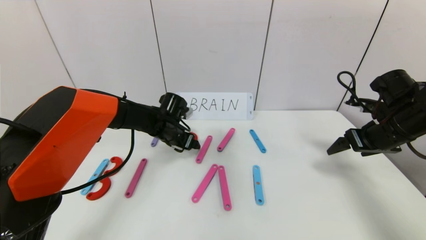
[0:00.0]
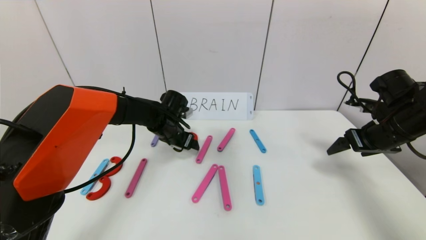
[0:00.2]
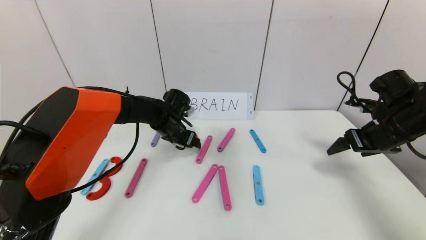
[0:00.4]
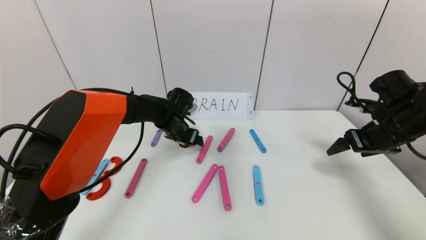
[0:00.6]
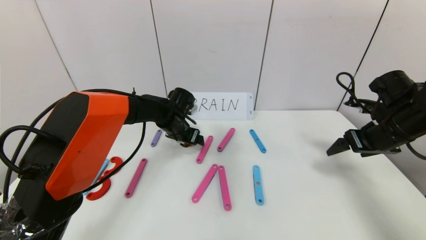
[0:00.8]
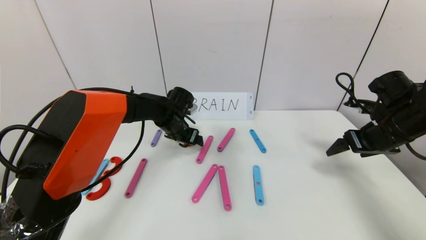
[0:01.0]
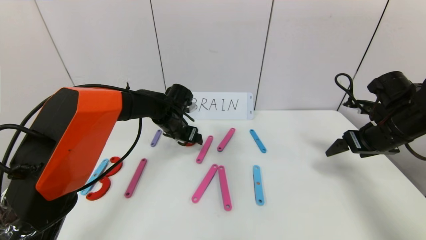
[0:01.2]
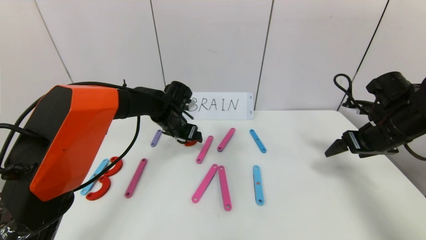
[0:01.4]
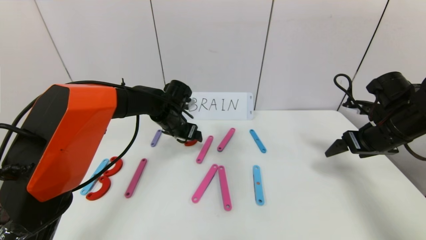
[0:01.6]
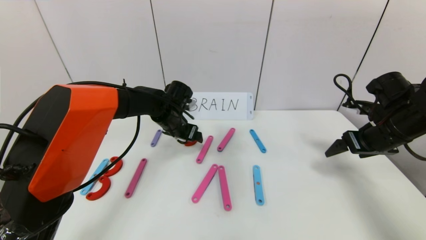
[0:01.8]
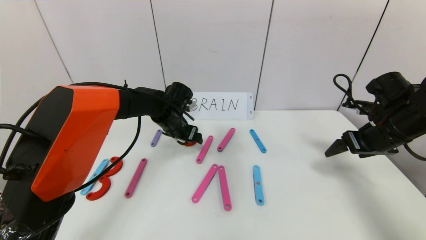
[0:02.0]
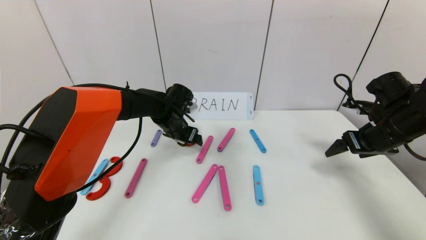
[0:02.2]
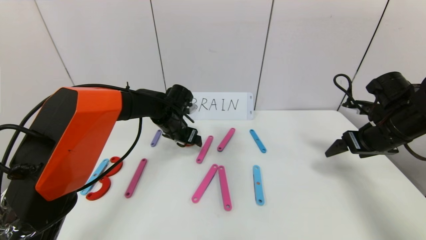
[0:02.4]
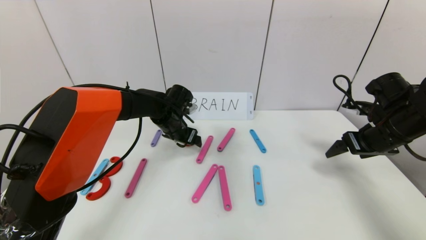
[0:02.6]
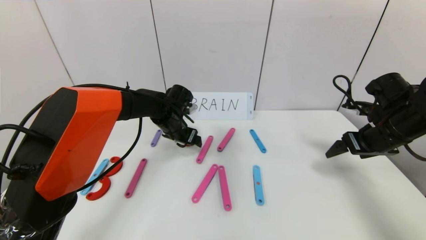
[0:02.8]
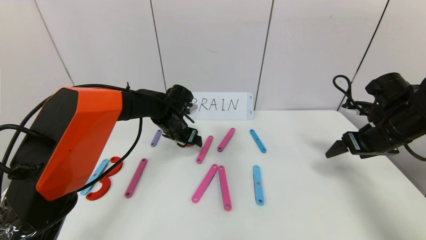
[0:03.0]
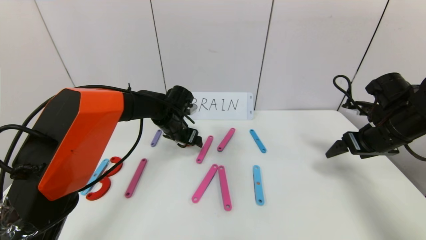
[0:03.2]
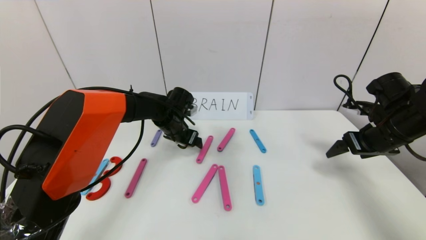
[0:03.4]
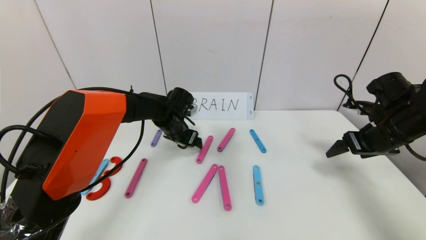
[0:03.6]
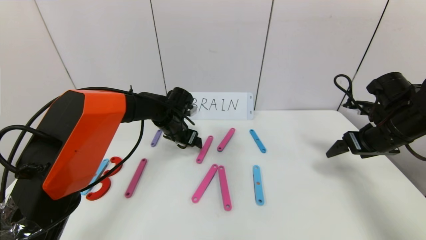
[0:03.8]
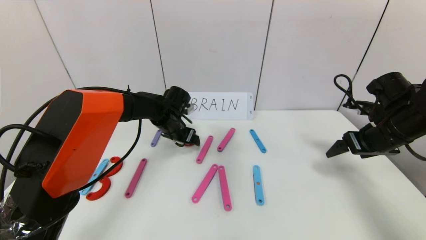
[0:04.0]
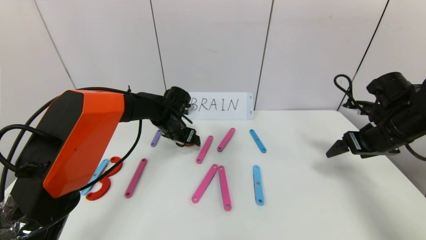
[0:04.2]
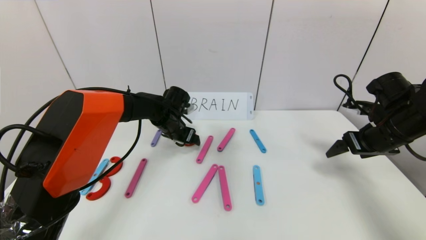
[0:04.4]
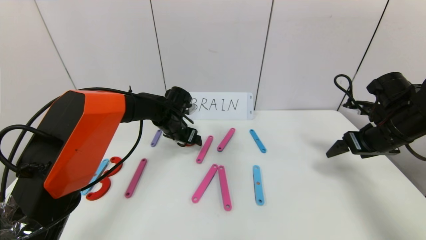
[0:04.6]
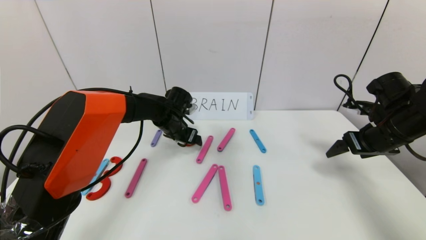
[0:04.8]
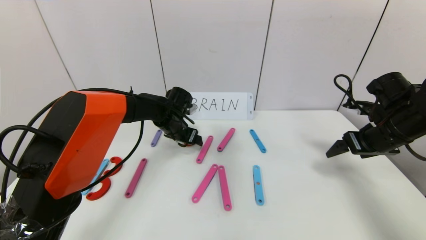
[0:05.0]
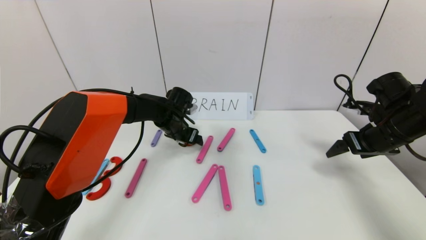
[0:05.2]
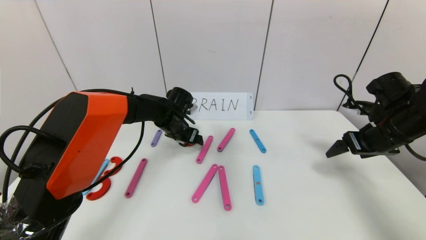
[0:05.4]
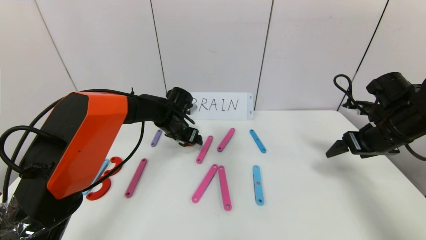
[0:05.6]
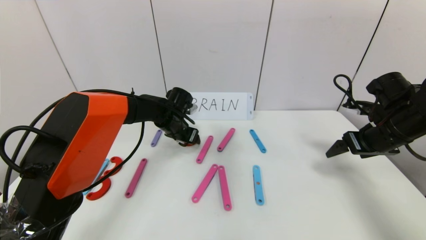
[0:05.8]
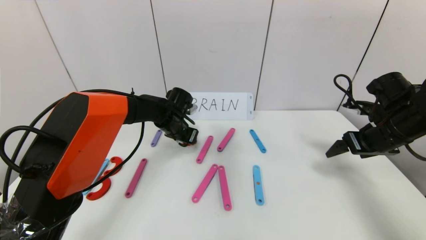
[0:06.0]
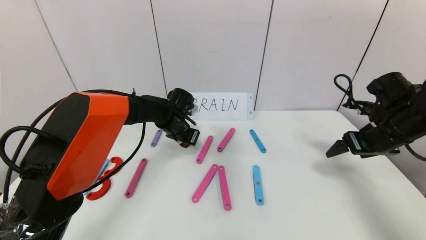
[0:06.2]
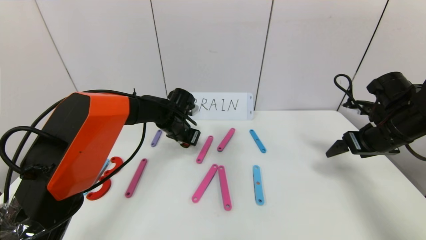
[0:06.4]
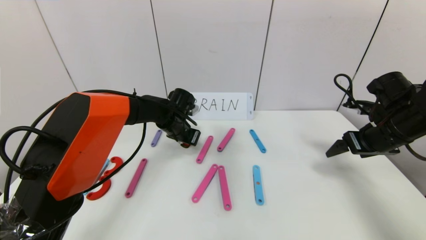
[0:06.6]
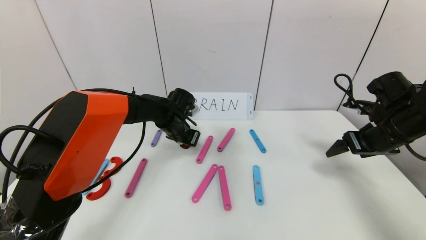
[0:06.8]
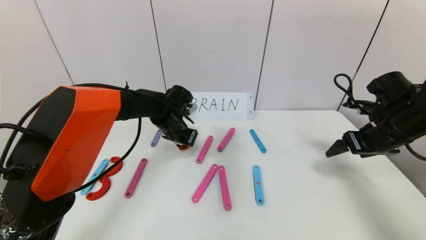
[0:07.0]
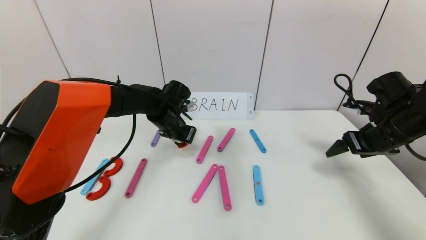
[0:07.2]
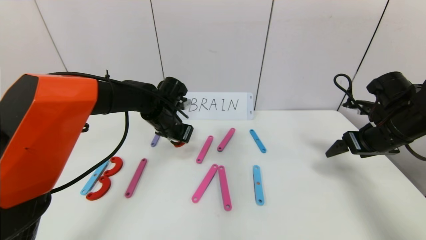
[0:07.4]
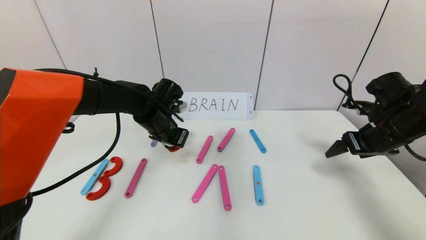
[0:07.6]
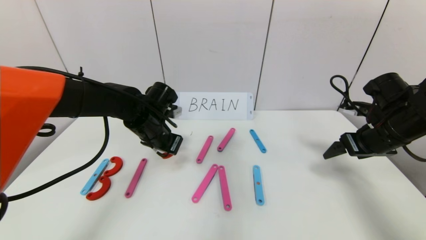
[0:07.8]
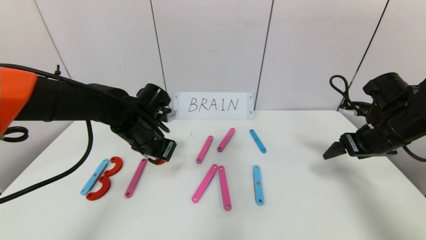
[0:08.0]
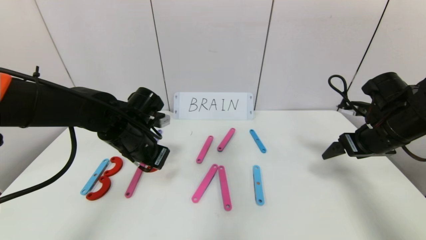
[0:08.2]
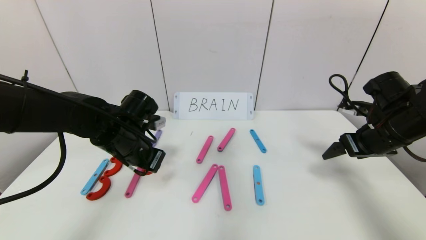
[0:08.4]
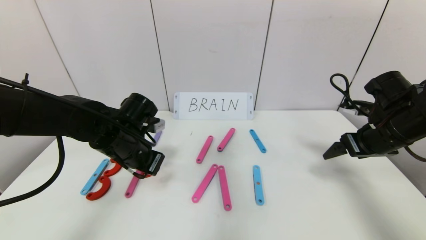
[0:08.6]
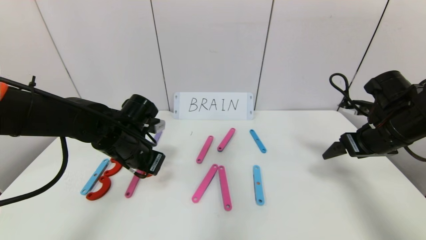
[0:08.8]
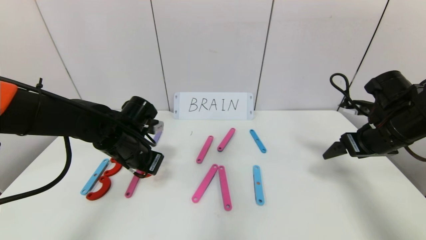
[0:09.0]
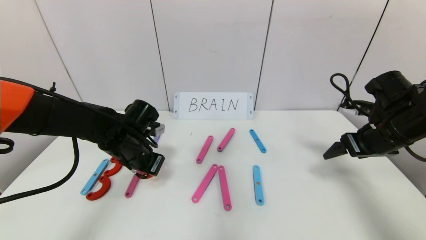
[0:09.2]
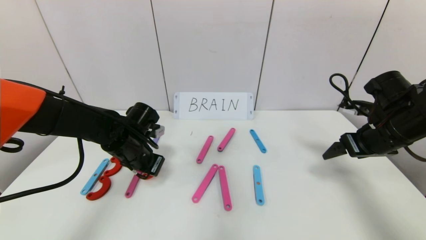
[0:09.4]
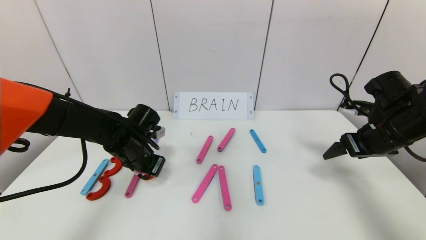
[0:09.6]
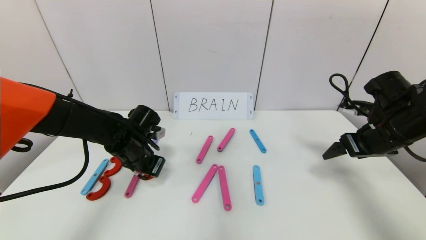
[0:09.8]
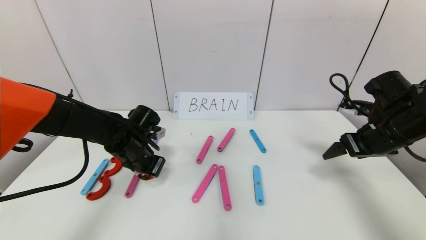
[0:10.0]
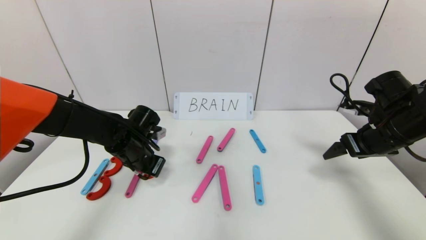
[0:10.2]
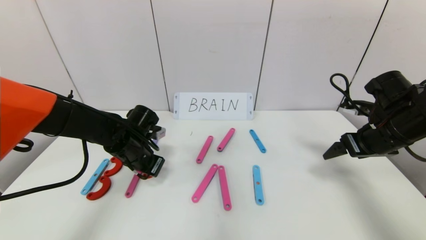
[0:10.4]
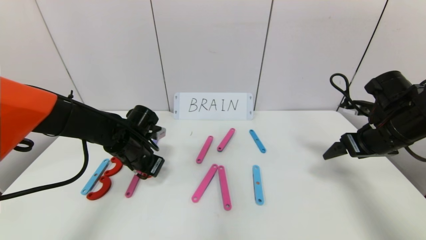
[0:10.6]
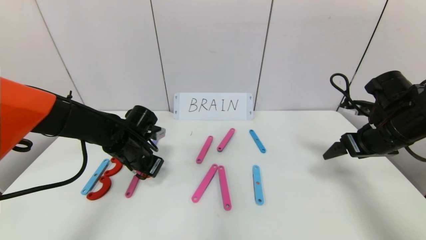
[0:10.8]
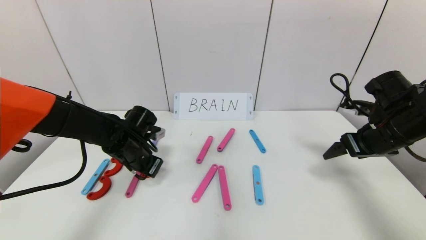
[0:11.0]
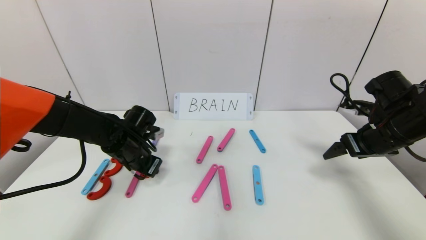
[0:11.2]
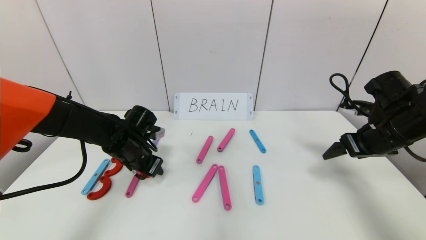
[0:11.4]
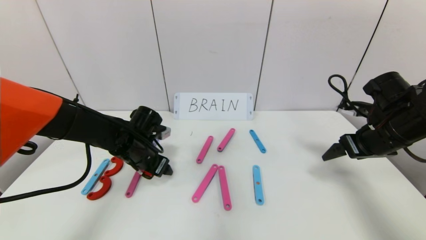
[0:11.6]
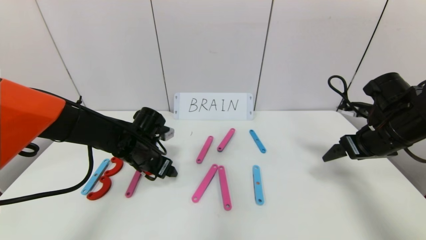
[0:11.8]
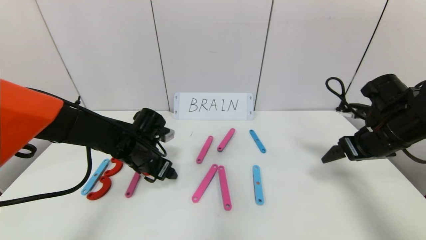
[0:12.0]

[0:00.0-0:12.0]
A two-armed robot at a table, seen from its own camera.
Task of the whole recording: rearrange the word baai as brain.
0:00.0 to 0:01.6: The grippers make only small movements.
0:01.6 to 0:03.0: Neither gripper changes place.
0:03.0 to 0:04.4: There are only small adjustments of the grippers.
0:04.4 to 0:06.0: The left gripper closes its fingers.
0:06.0 to 0:07.6: The left gripper travels backward and upward by approximately 10 cm, and closes.
0:07.6 to 0:09.0: The left gripper moves backward, roughly 5 cm.
0:09.0 to 0:10.4: There are only small adjustments of the grippers.
0:10.4 to 0:12.0: The left gripper opens its fingers.

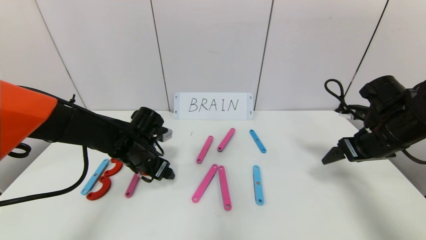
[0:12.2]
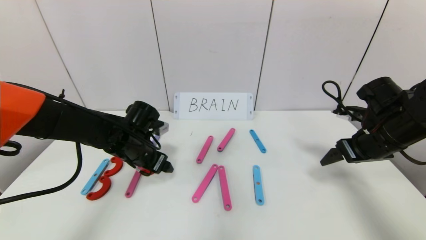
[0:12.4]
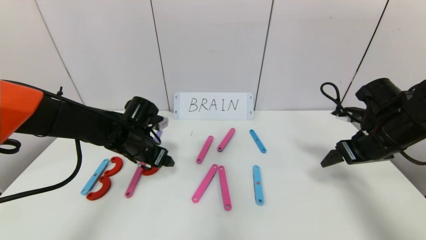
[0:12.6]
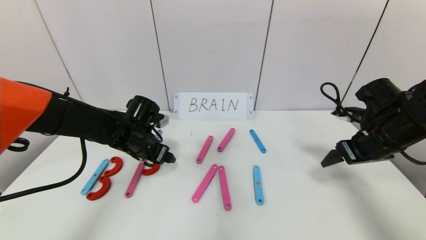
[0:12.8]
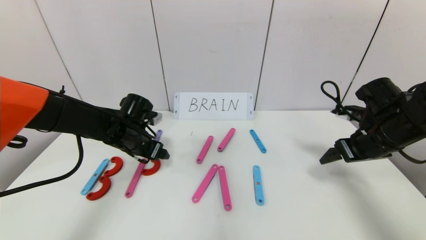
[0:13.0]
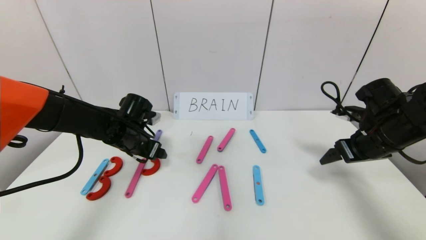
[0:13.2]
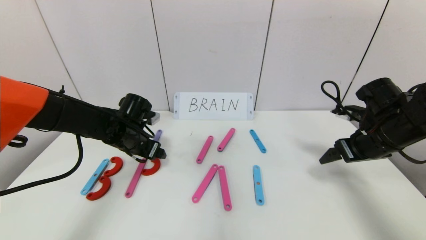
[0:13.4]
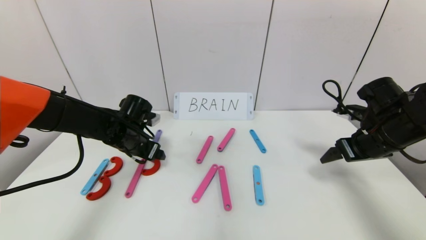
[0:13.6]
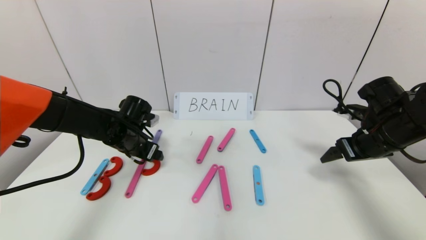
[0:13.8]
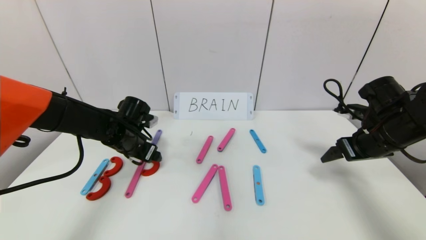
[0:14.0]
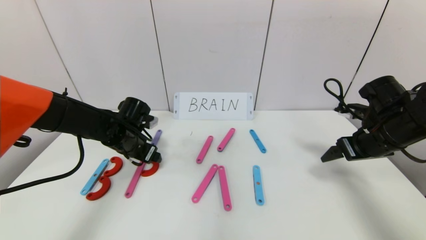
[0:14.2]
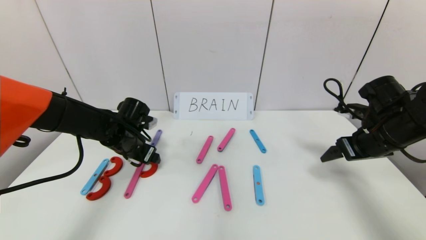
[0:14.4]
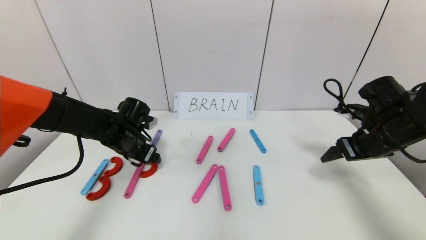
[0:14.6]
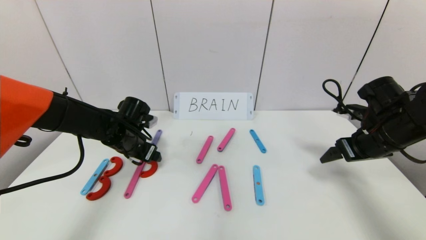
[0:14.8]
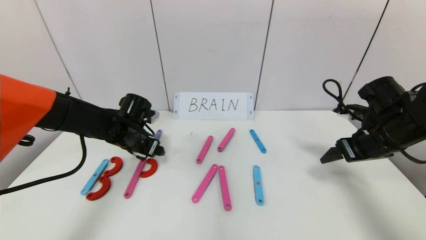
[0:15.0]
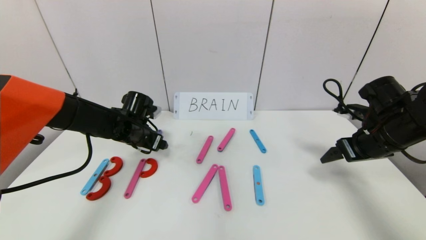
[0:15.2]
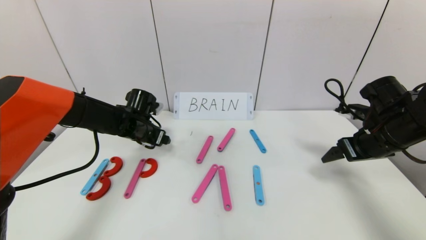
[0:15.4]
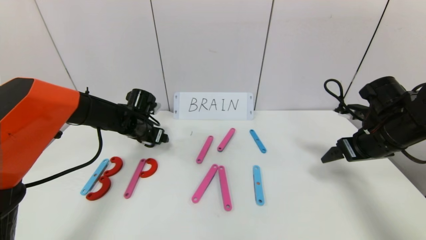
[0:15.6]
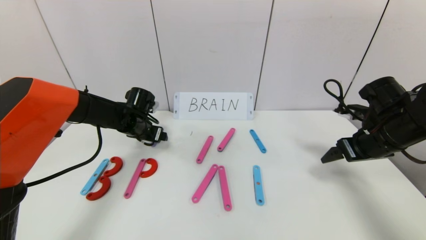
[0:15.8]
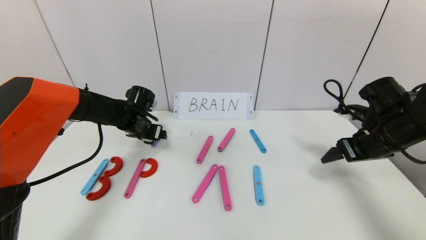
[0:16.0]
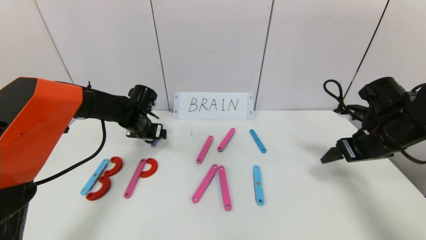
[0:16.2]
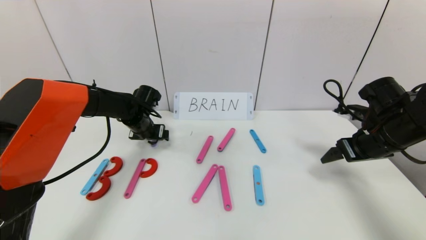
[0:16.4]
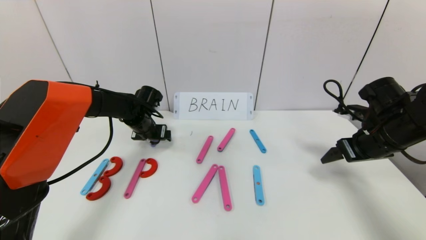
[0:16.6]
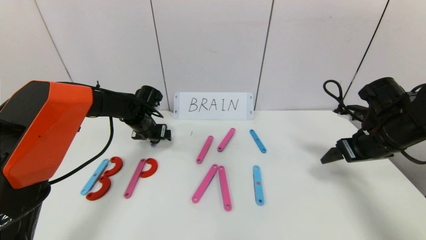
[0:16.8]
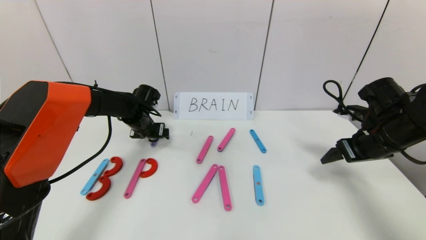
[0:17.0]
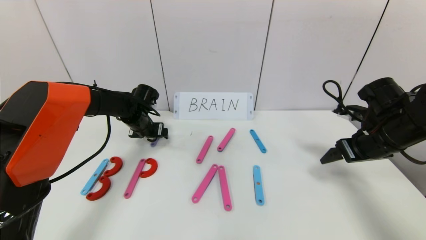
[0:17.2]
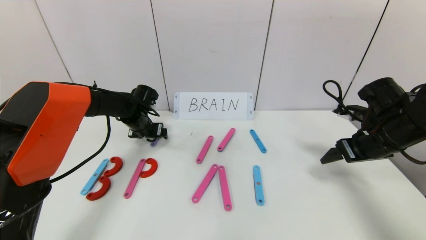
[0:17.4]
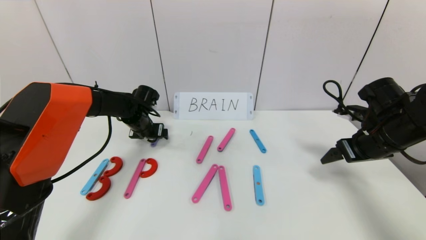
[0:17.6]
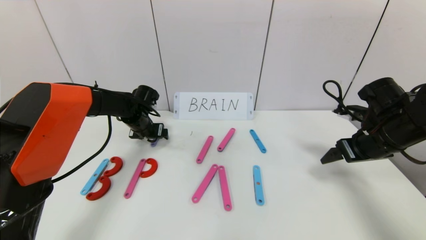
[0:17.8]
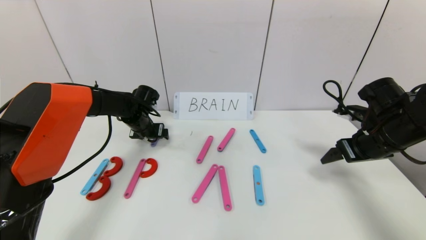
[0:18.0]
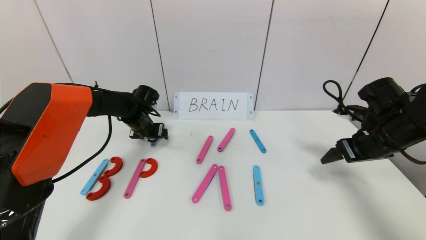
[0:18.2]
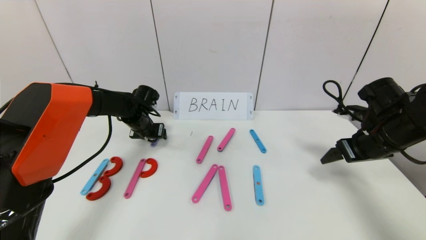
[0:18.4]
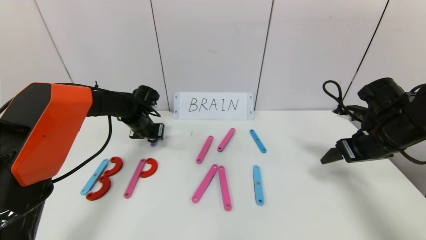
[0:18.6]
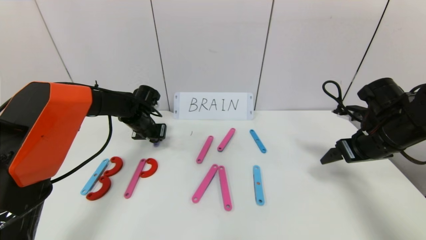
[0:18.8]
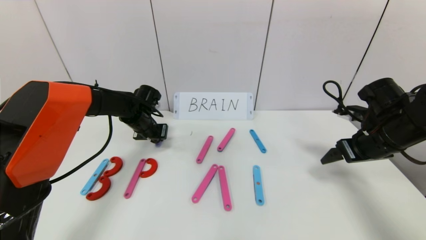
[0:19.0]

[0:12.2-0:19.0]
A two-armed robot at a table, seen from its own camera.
Task of the whole recording: rearrange the word baai as brain.
0:12.2 to 0:15.0: There are only small adjustments of the grippers.
0:15.0 to 0:16.2: The left gripper is displaced forward by about 5 cm.
0:16.2 to 0:17.6: The grippers stay close to where they were, moving slightly.
0:17.6 to 0:19.0: The left gripper closes up.
